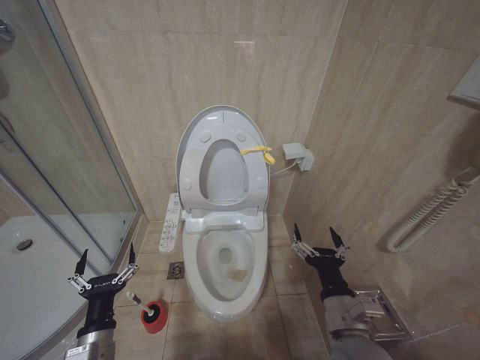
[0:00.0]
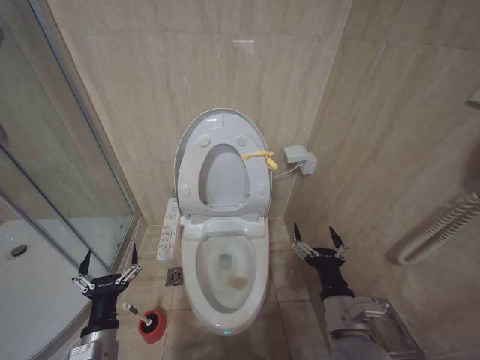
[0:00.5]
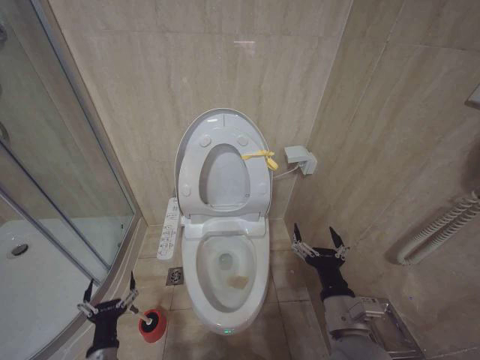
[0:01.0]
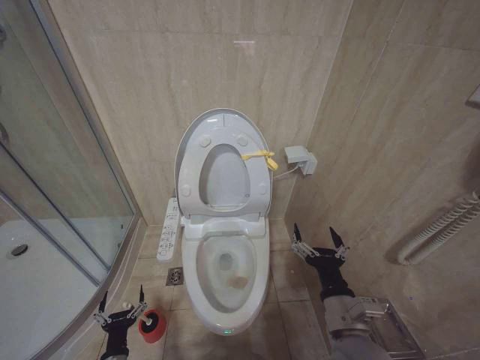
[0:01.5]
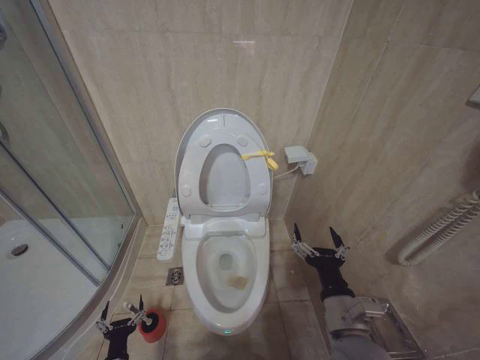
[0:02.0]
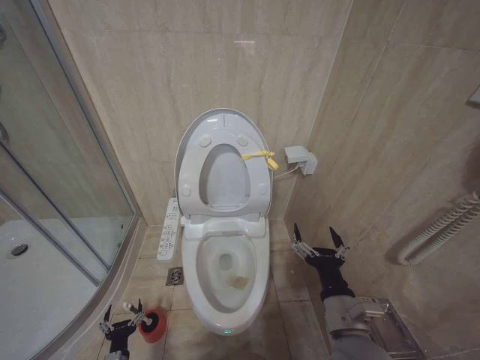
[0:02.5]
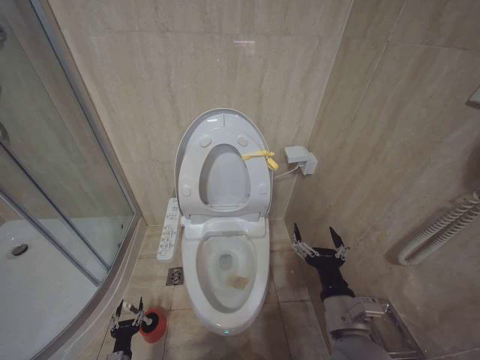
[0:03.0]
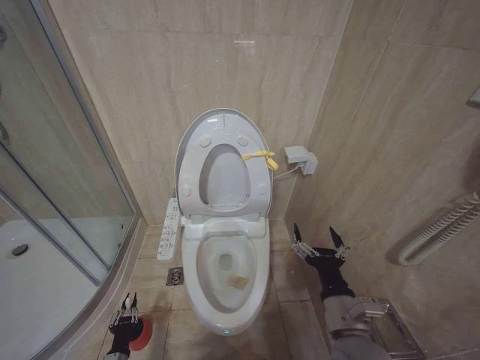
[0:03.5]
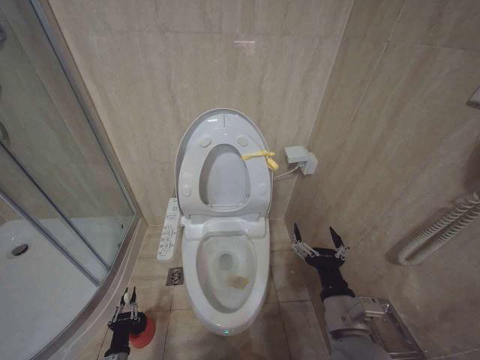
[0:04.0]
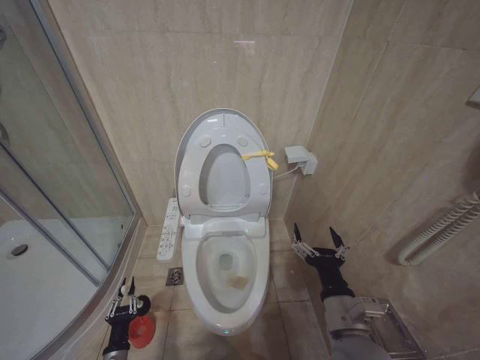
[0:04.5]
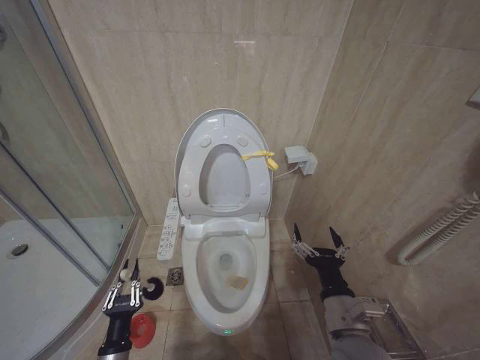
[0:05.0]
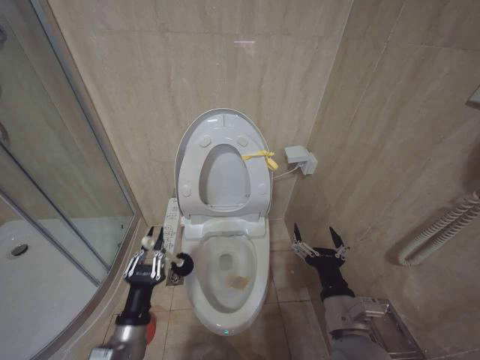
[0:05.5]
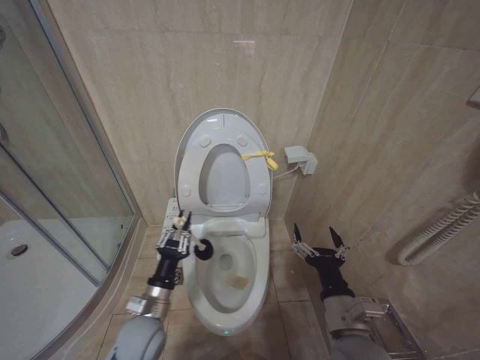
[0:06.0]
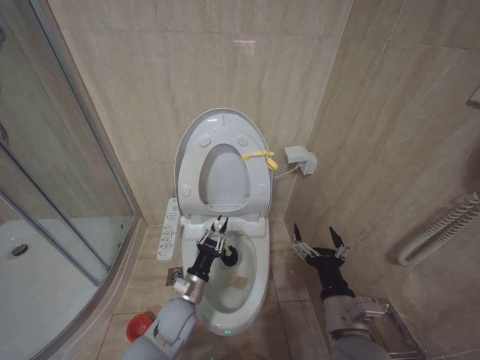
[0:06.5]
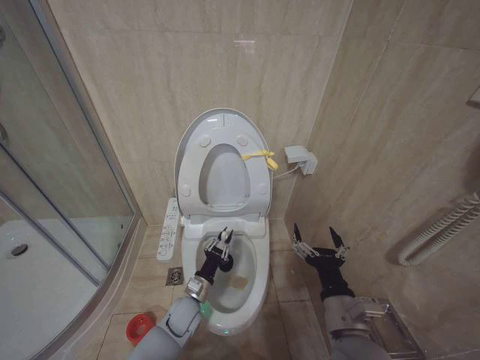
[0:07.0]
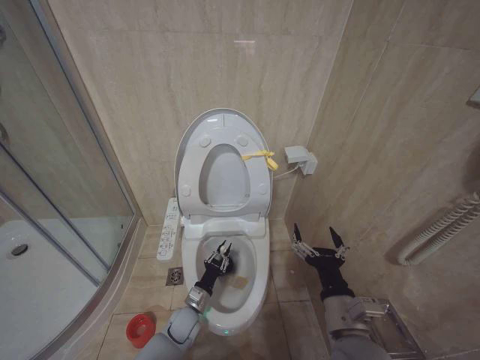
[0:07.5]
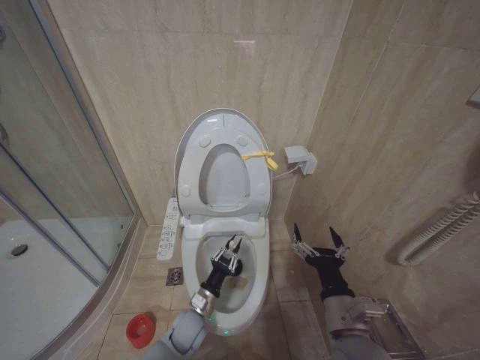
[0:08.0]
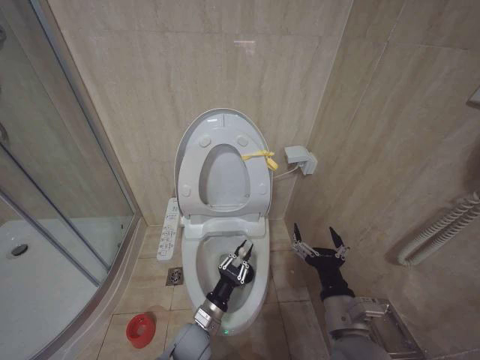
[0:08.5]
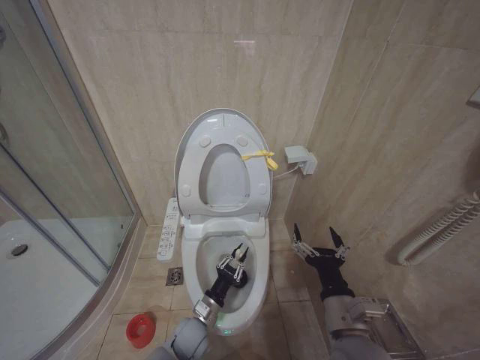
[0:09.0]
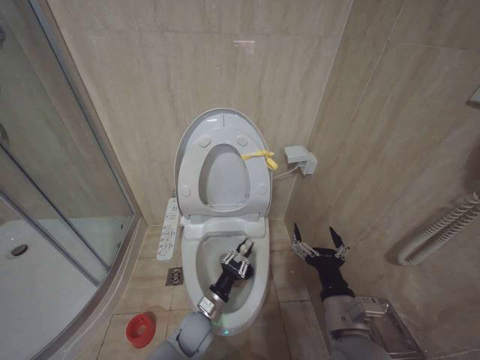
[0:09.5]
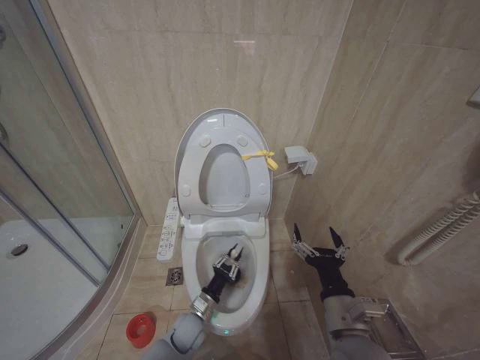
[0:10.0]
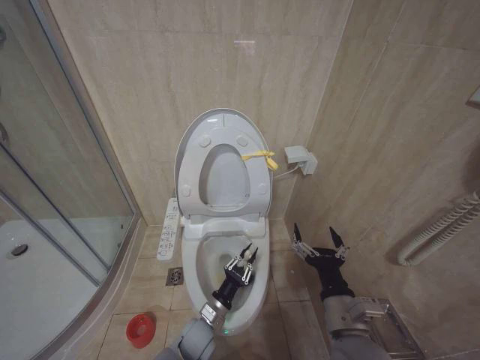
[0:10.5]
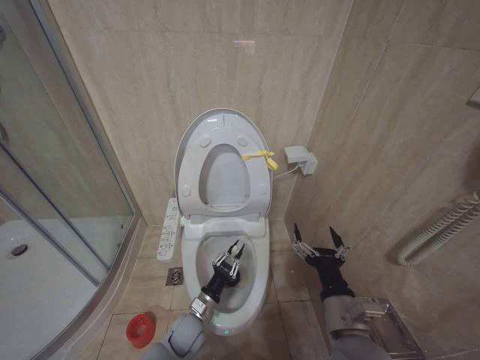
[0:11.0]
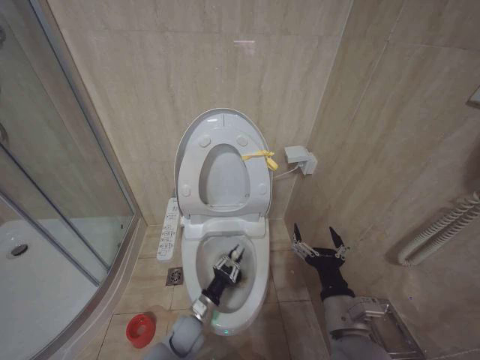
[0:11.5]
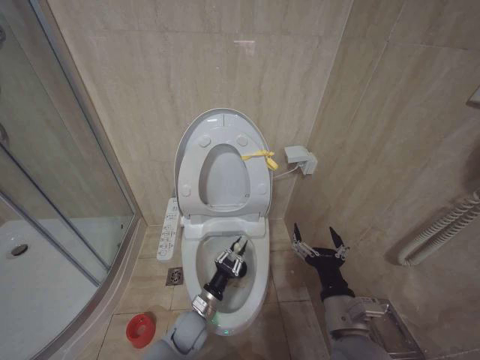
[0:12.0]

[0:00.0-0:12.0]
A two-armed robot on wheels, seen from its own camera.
Task of the whole recording: Open the toilet lid, clean the toilet bowl with a toilet brush, close the toilet lid, and flush.
0:00.0 to 0:02.0: The left gripper heads downward, covering about 20 cm.
0:02.0 to 0:04.0: The left gripper closes its fingers.
0:04.0 to 0:06.0: The left gripper goes about 30 cm upward and to the right.
0:06.0 to 0:08.0: The left gripper travels downward, to the right and forward by about 15 cm.

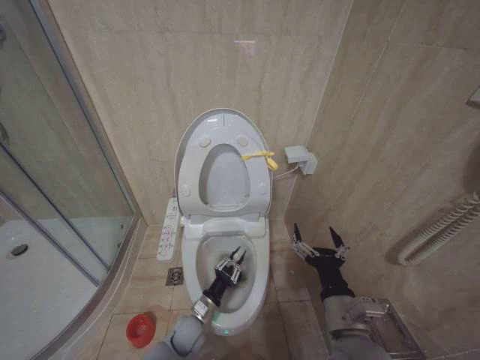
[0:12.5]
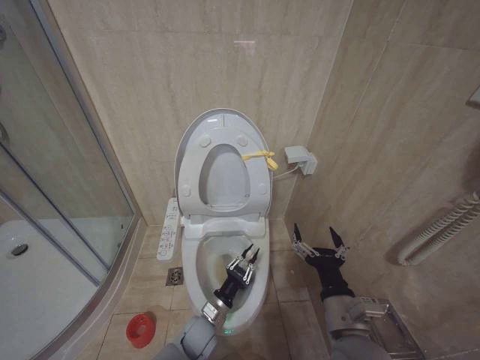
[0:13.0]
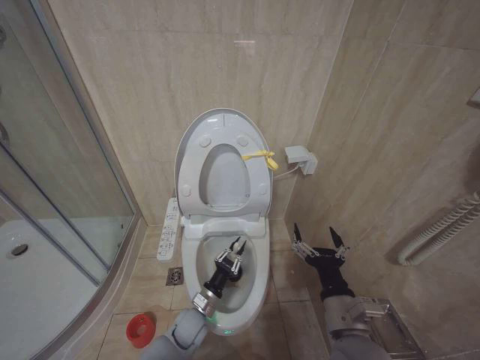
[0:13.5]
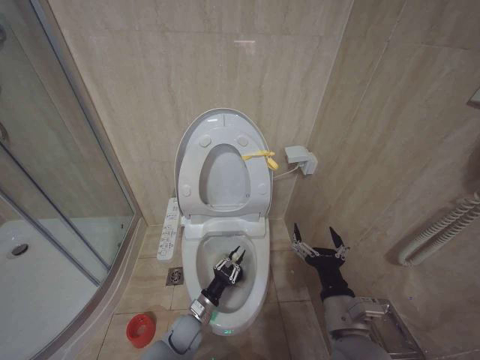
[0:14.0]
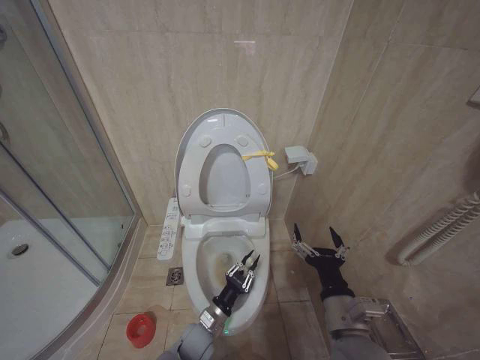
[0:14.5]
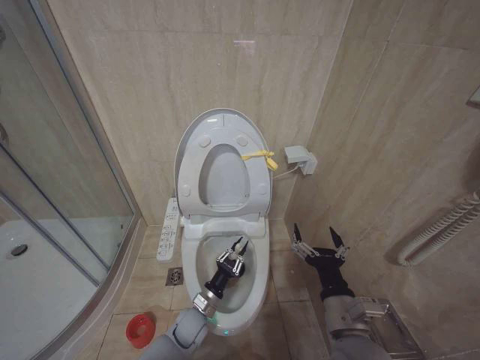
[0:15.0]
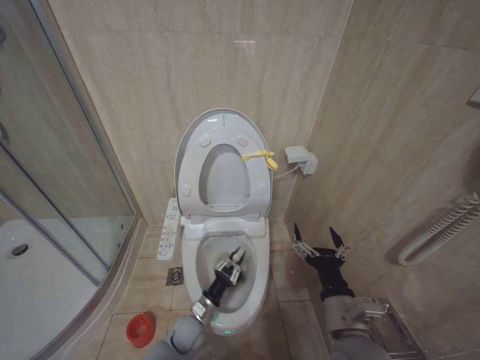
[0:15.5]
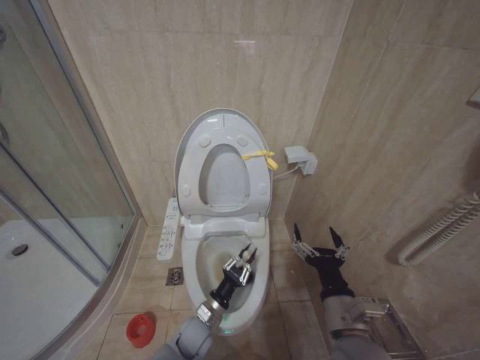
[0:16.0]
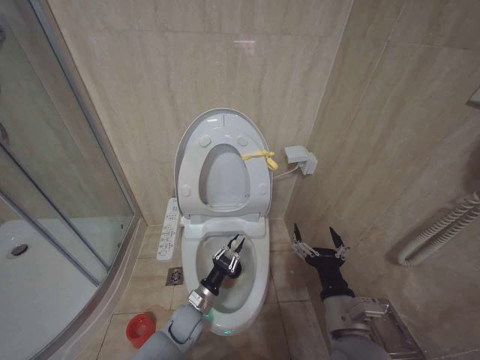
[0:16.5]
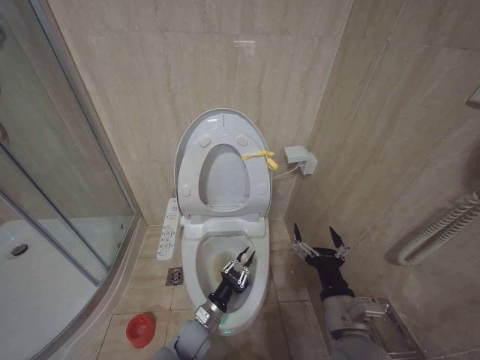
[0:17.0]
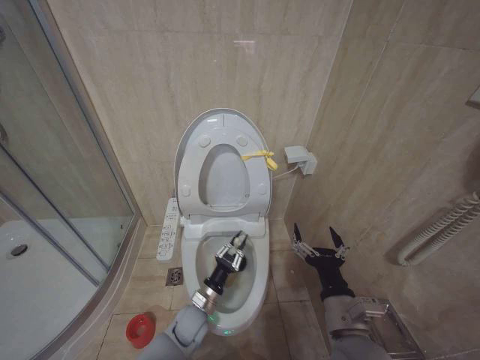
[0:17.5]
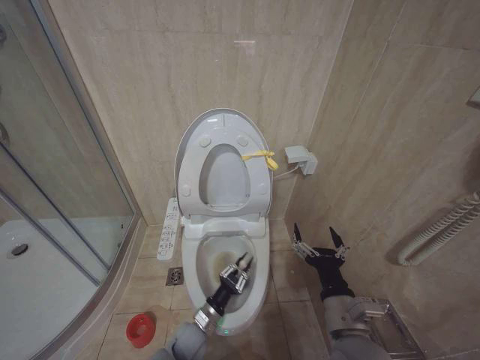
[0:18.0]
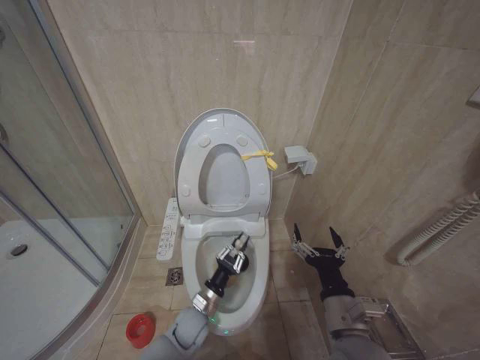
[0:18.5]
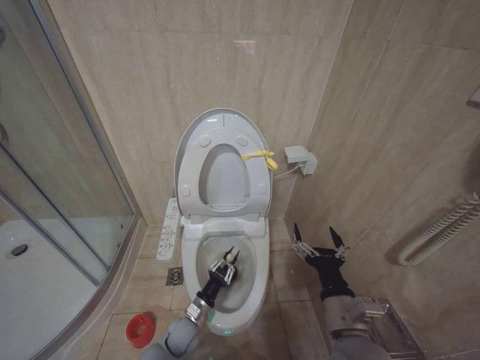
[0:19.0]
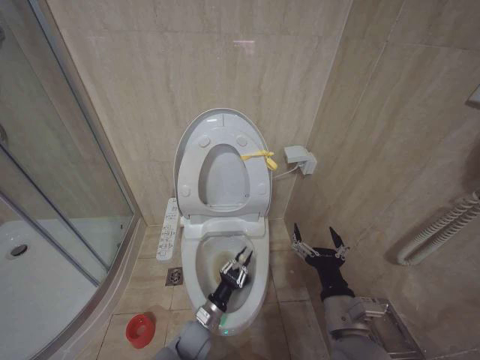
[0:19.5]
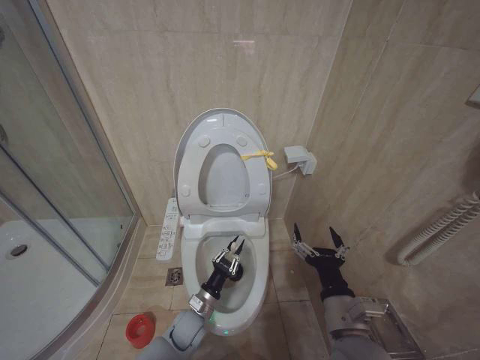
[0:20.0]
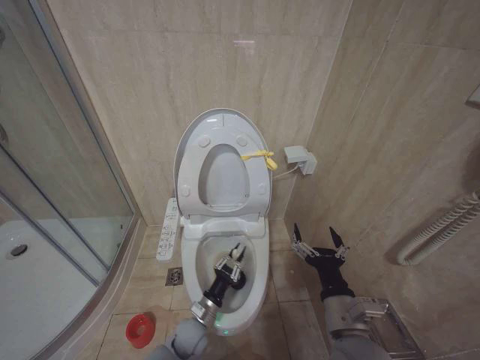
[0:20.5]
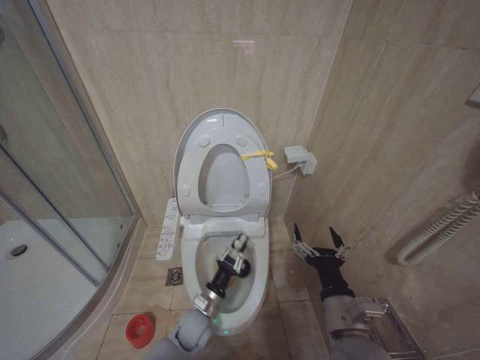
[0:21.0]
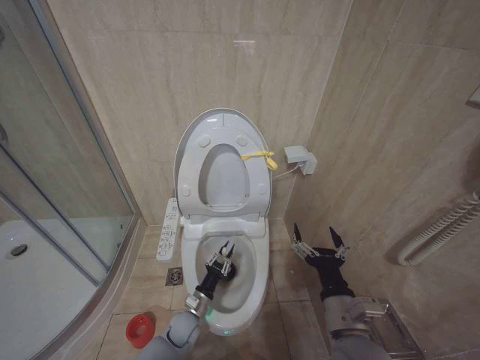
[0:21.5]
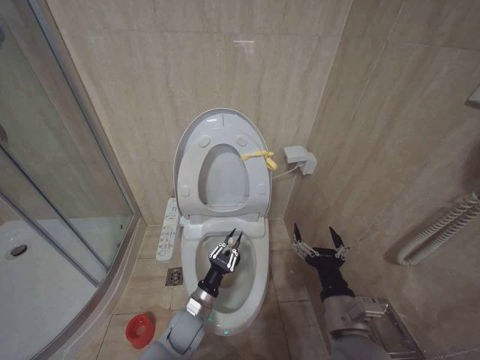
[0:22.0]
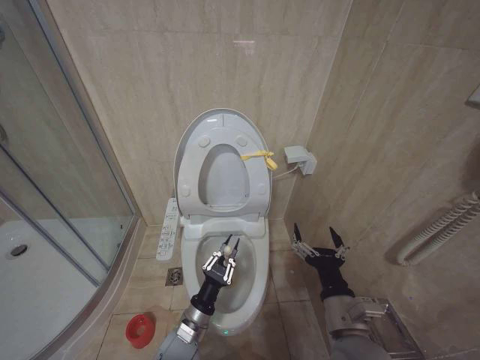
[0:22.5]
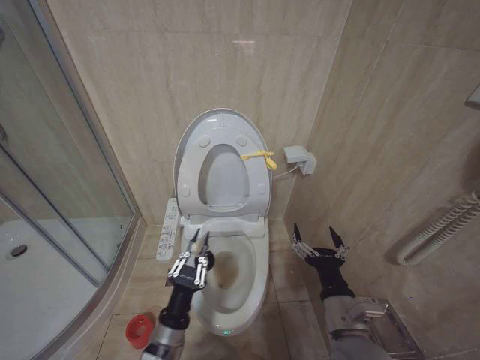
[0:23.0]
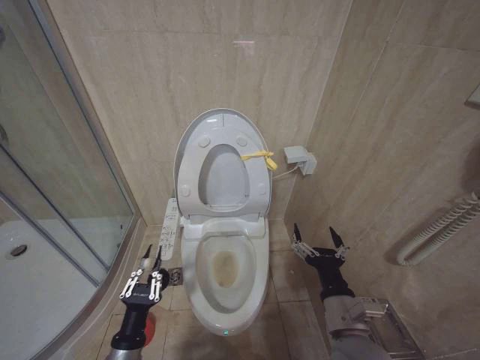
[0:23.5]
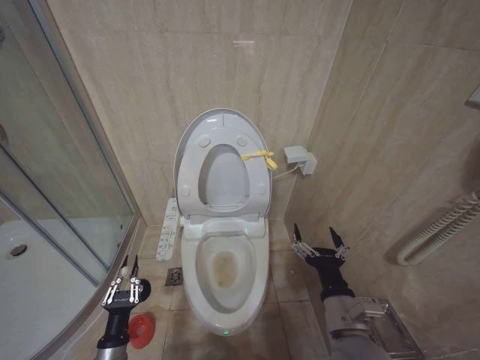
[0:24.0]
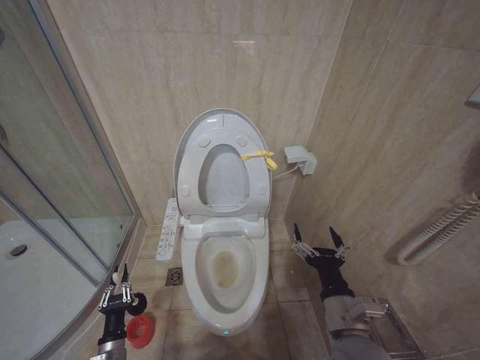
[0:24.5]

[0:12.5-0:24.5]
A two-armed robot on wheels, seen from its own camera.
Task of the whole recording: Open the toilet lid, clean the toilet bowl with a toilet brush, close the toilet lid, and flush.
0:12.5 to 0:14.5: The grippers stay close to where they were, moving slightly.
0:14.5 to 0:16.5: The left gripper changes place by some 5 cm.
0:16.5 to 0:18.5: There are only small adjustments of the grippers.
0:20.5 to 0:22.5: The left gripper goes roughly 5 cm upward.
0:22.5 to 0:24.5: The left gripper moves to the left and downward, some 20 cm.

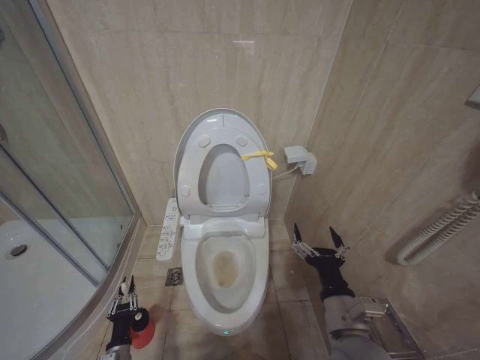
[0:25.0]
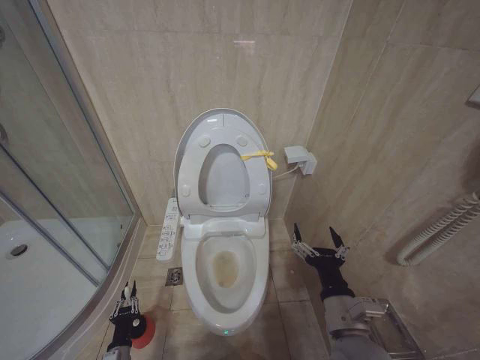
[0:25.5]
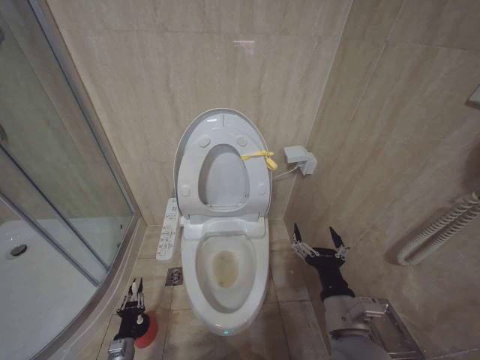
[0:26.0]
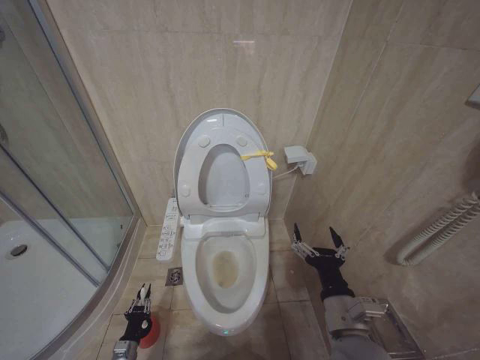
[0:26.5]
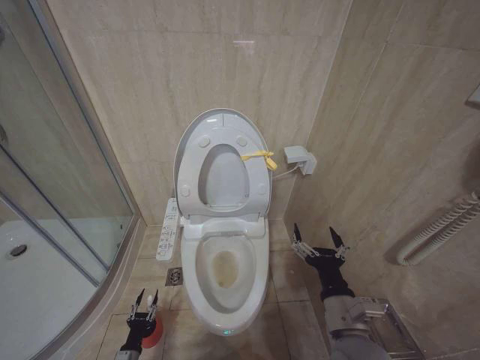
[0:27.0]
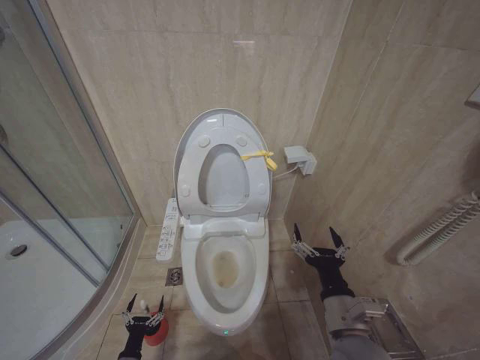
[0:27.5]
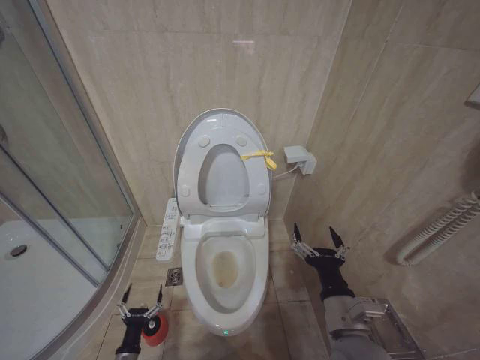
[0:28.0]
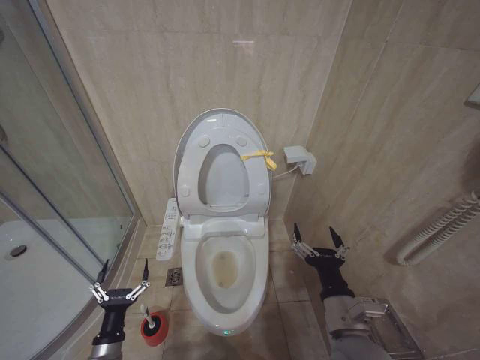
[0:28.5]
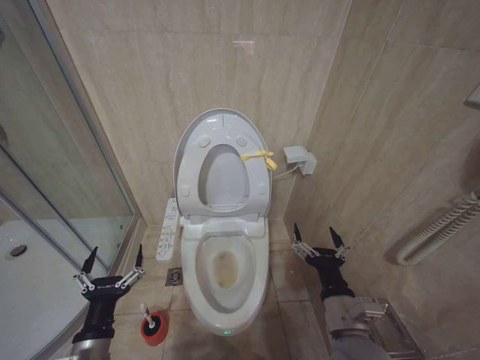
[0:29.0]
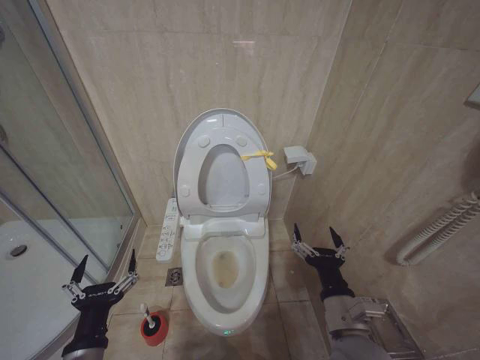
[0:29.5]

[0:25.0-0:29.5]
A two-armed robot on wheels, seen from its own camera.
Task of the whole recording: Open the toilet lid, clean the toilet bowl with a toilet brush, close the toilet lid, and flush.
0:25.0 to 0:27.0: The left gripper heads downward, covering some 10 cm.
0:27.0 to 0:29.5: The left gripper heads upward, covering roughly 35 cm, and opens.
